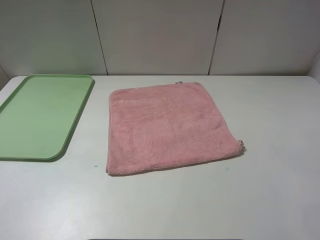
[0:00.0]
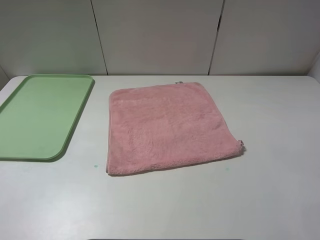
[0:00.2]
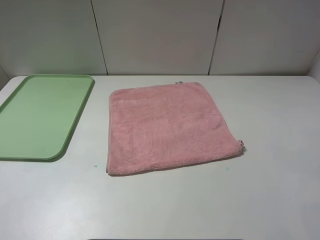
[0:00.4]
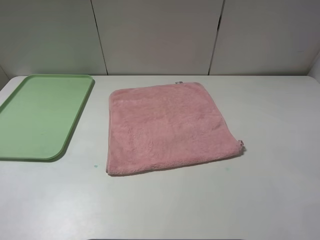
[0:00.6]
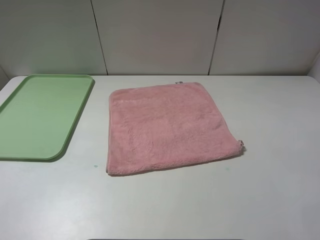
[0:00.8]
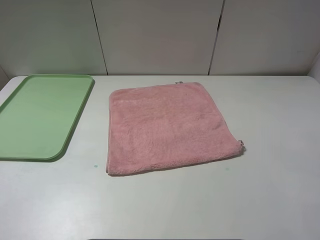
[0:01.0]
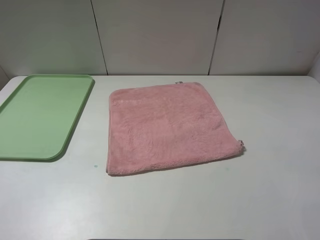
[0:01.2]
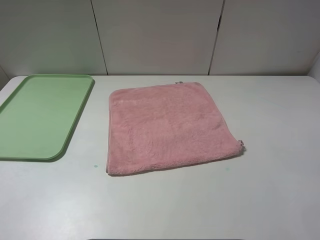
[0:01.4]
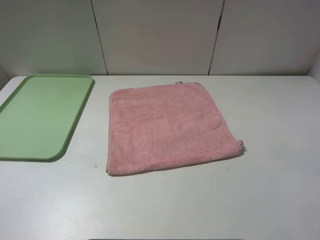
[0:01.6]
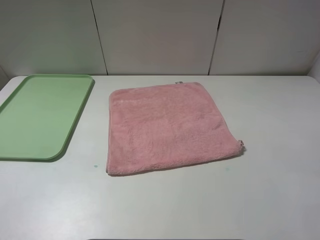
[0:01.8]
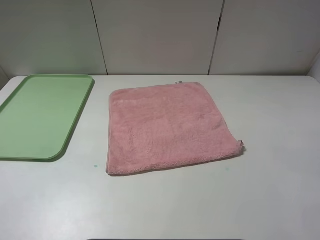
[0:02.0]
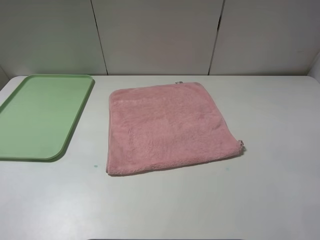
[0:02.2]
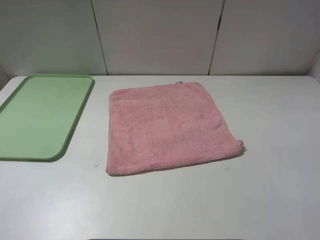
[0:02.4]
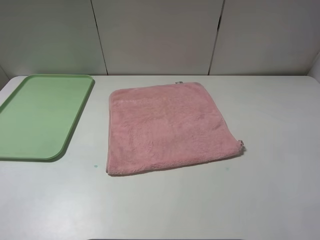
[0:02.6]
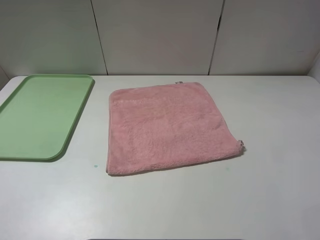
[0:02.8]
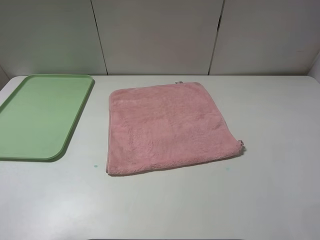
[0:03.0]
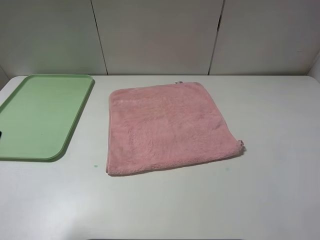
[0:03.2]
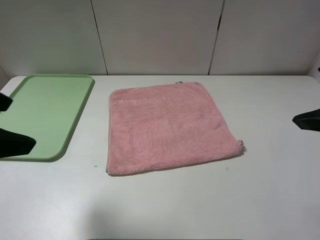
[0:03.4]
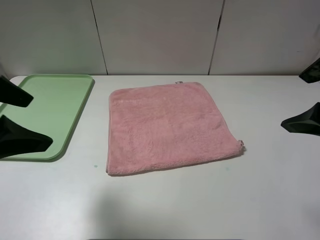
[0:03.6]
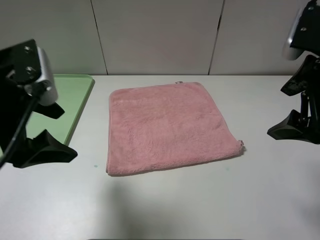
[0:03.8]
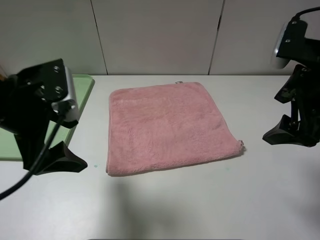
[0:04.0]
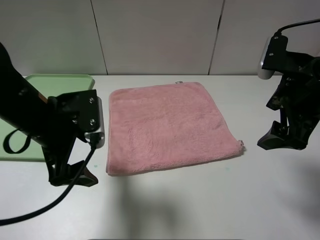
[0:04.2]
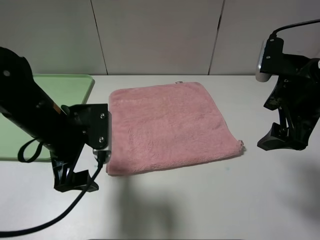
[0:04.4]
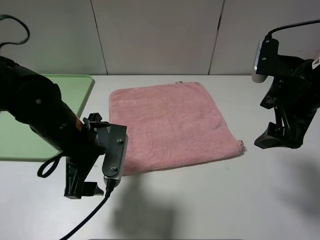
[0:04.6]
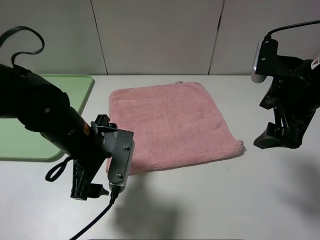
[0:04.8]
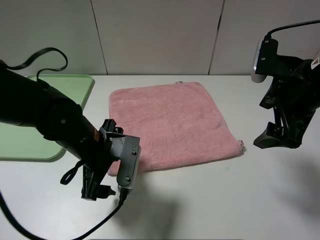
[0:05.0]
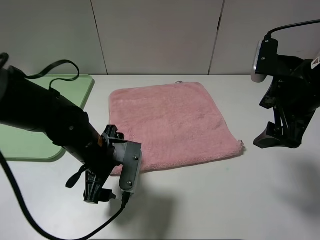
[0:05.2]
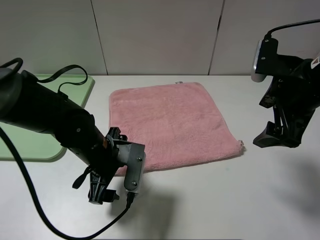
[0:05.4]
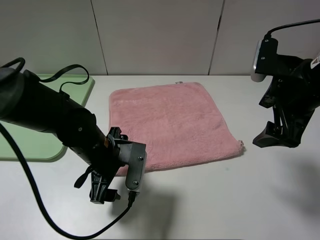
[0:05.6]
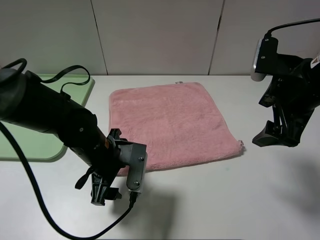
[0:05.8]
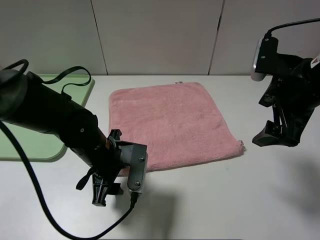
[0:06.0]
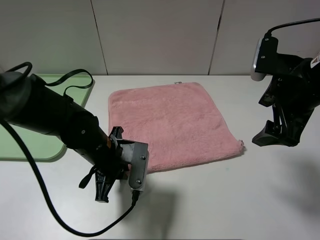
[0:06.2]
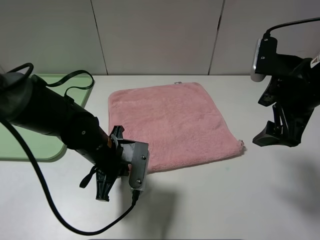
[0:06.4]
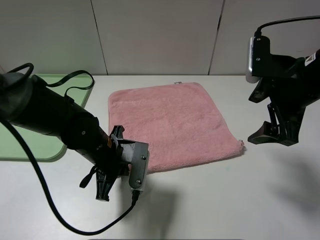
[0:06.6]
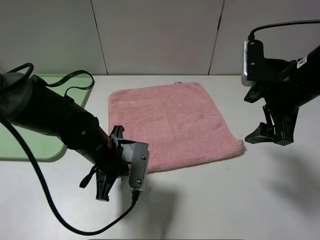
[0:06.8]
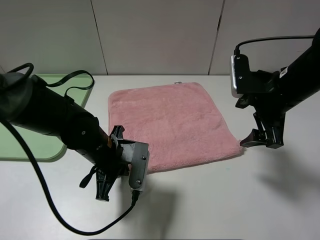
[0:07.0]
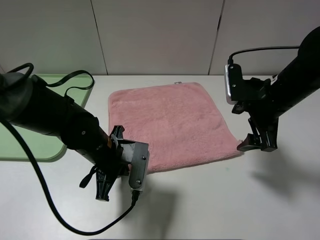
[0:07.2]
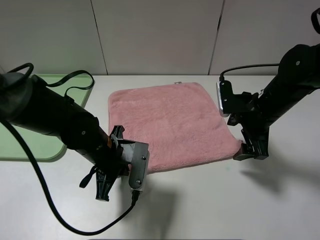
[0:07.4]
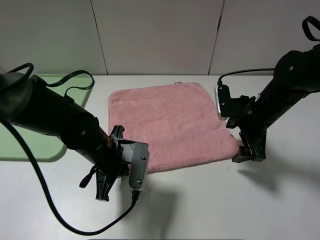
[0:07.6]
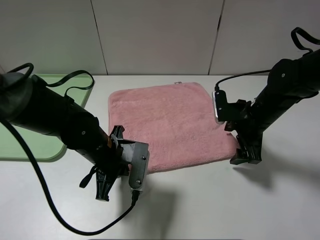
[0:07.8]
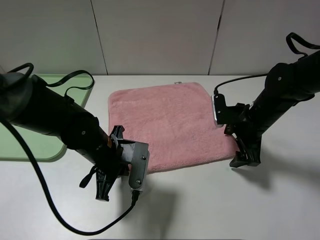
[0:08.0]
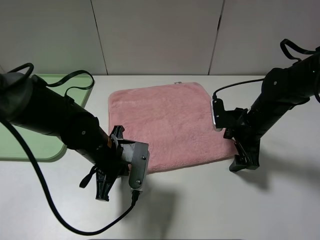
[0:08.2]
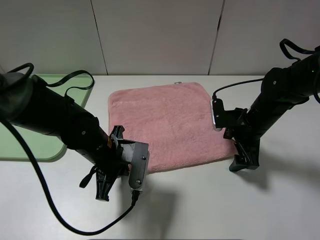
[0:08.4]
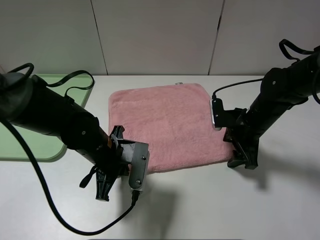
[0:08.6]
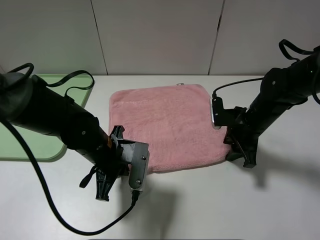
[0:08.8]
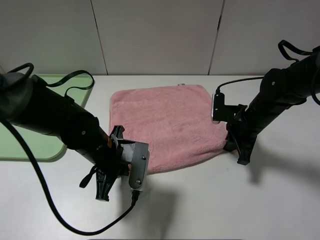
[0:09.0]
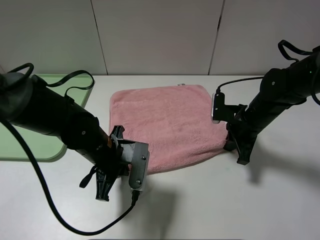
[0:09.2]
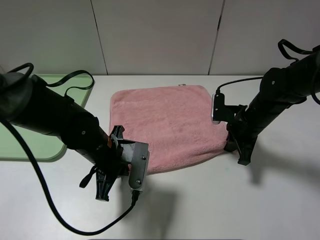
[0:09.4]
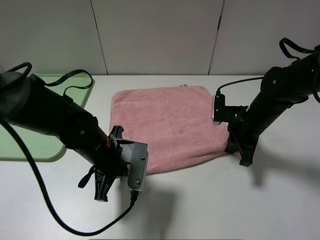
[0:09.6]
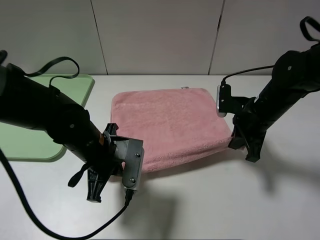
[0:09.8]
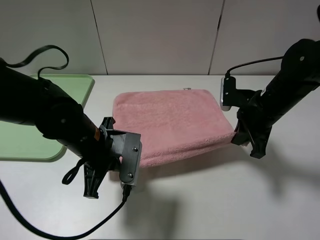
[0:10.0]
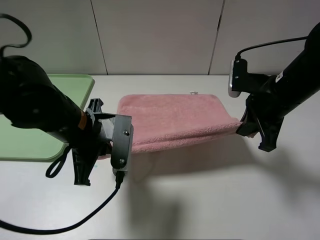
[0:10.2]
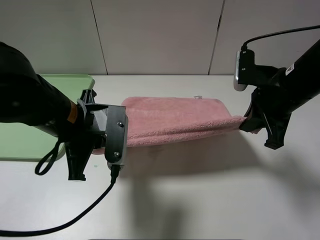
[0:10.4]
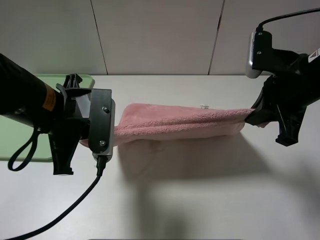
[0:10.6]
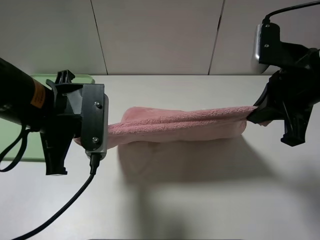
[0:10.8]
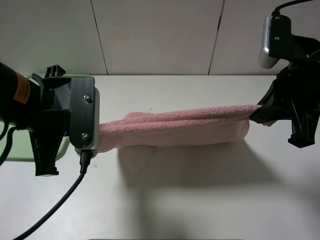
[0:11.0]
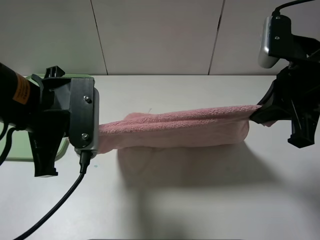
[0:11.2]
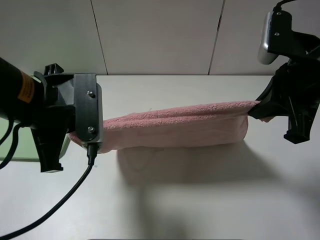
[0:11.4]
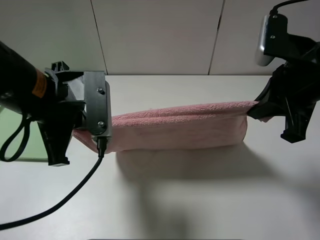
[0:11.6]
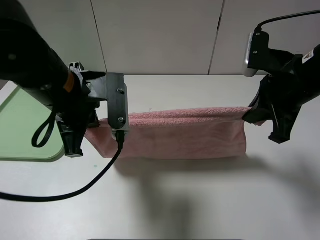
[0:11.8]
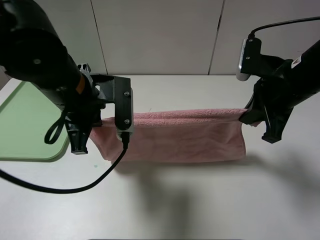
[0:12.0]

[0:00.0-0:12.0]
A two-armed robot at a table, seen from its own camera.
0:00.0 to 0:01.6: Neither gripper changes place.
0:03.0 to 0:04.4: The right gripper is displaced forward and downward by about 20 cm; the left gripper moves downward, forward and to the right, about 25 cm.
0:04.4 to 0:06.0: The left gripper goes about 10 cm downward, and closes its fingers.
0:06.0 to 0:07.6: The right gripper shifts roughly 15 cm downward and forward; the left gripper closes its fingers.
0:07.6 to 0:09.0: The right gripper closes its fingers.
0:09.0 to 0:10.4: Both grippers move upward, some 10 cm.

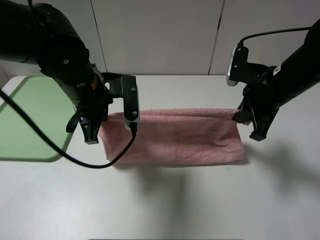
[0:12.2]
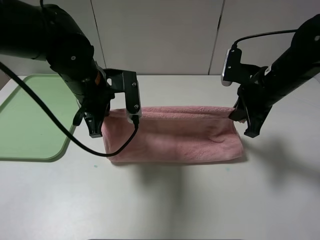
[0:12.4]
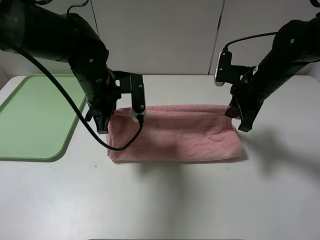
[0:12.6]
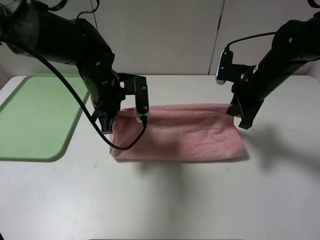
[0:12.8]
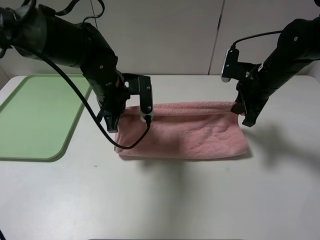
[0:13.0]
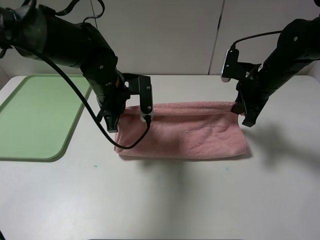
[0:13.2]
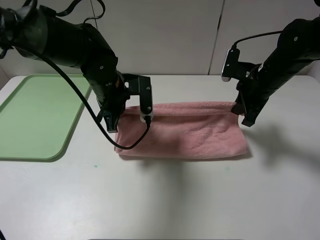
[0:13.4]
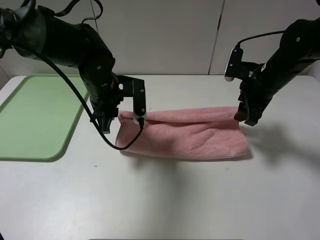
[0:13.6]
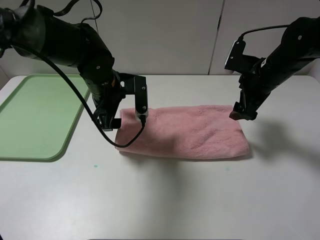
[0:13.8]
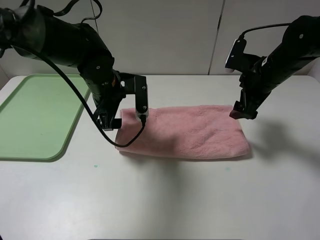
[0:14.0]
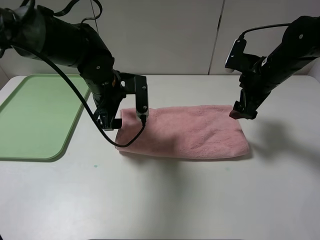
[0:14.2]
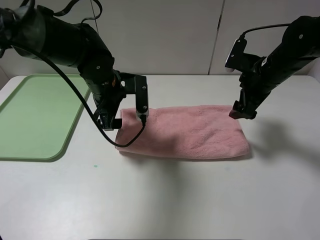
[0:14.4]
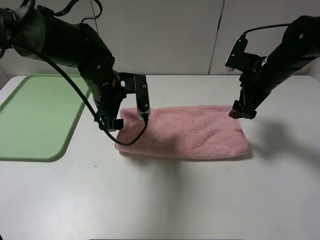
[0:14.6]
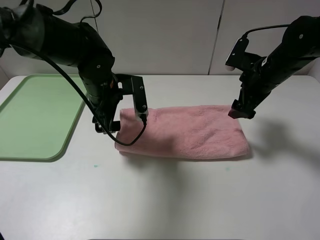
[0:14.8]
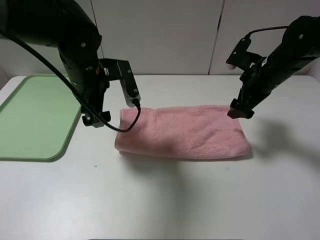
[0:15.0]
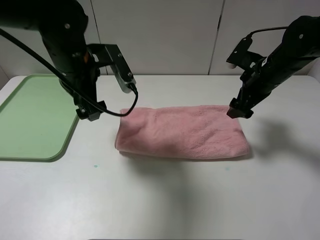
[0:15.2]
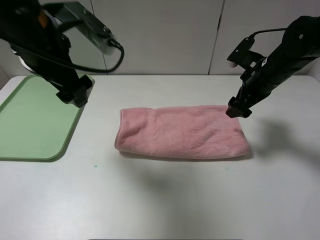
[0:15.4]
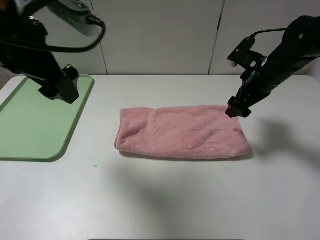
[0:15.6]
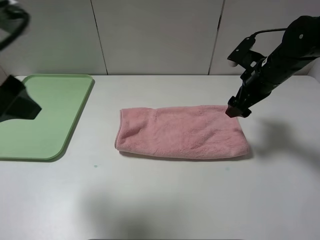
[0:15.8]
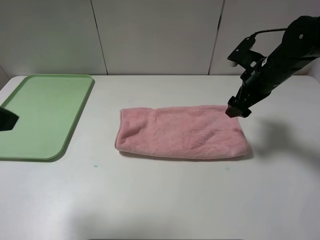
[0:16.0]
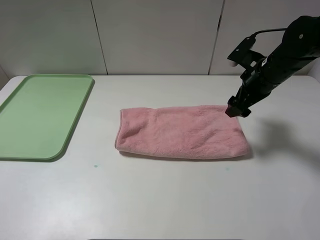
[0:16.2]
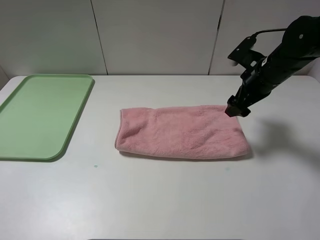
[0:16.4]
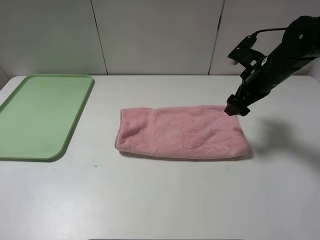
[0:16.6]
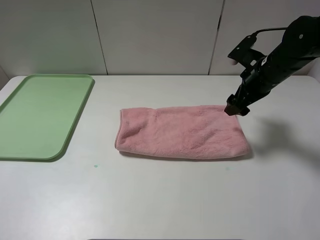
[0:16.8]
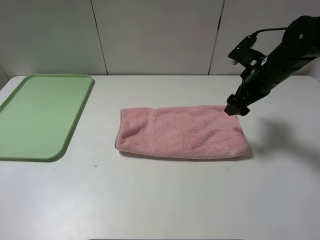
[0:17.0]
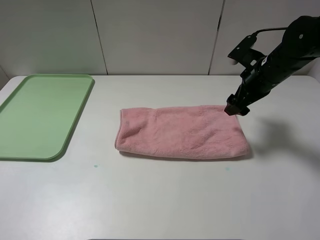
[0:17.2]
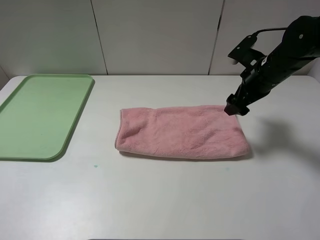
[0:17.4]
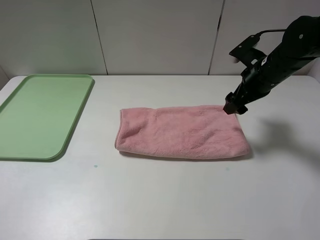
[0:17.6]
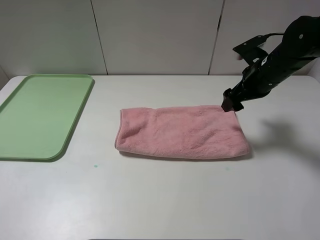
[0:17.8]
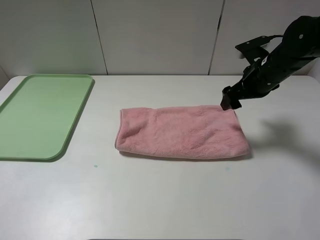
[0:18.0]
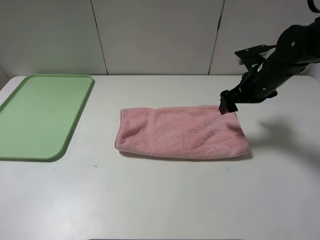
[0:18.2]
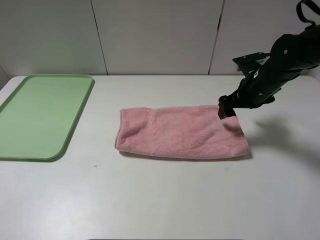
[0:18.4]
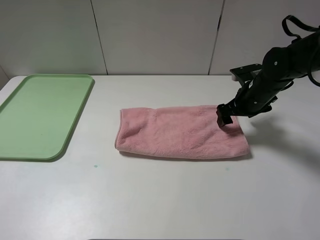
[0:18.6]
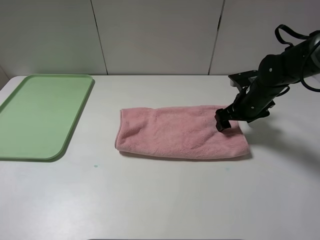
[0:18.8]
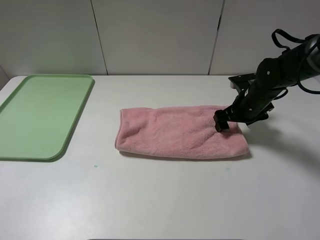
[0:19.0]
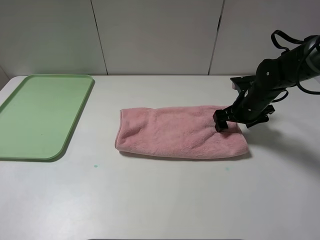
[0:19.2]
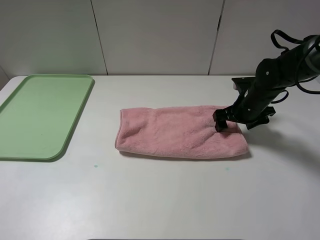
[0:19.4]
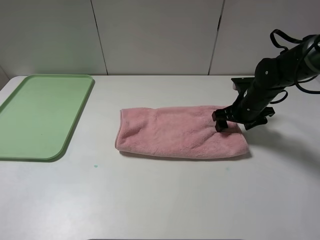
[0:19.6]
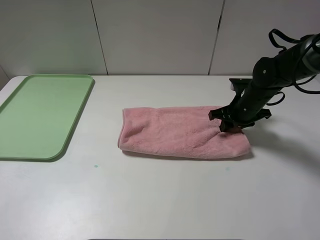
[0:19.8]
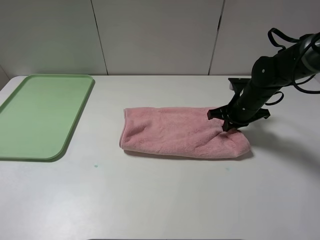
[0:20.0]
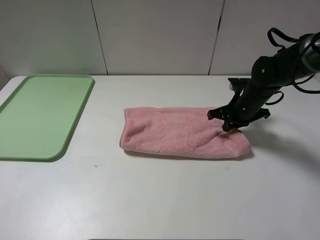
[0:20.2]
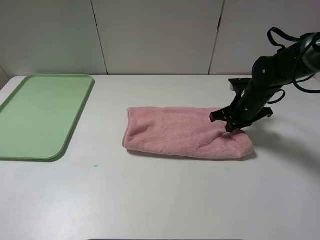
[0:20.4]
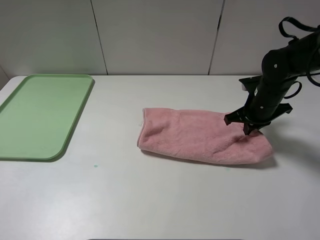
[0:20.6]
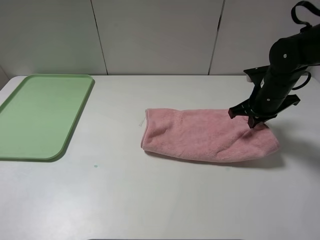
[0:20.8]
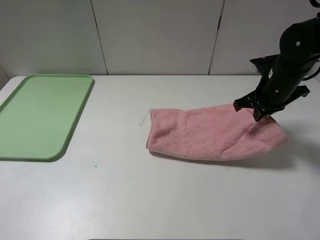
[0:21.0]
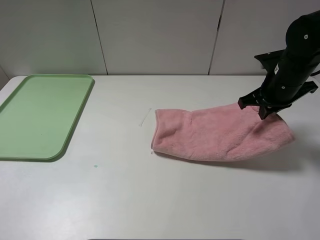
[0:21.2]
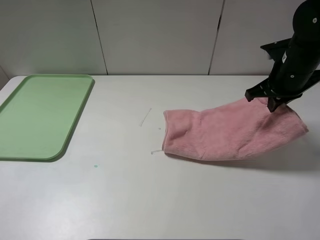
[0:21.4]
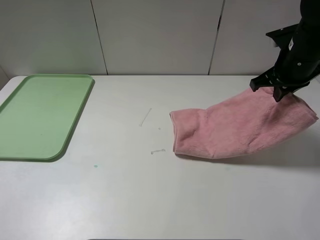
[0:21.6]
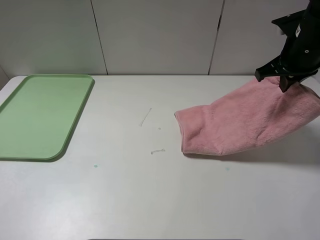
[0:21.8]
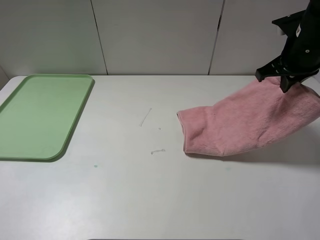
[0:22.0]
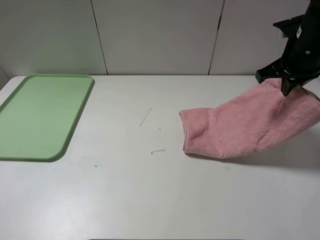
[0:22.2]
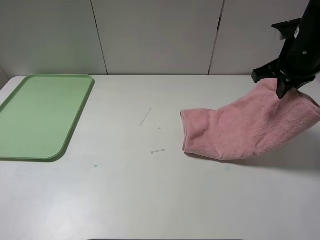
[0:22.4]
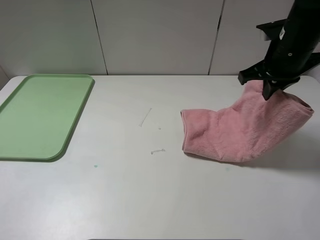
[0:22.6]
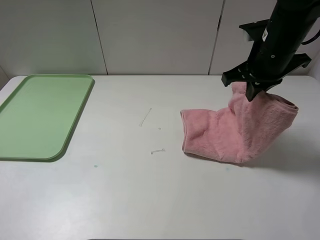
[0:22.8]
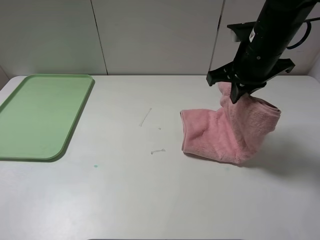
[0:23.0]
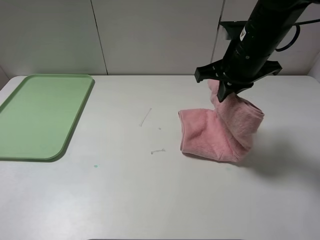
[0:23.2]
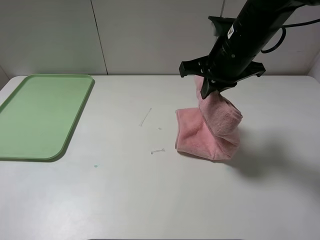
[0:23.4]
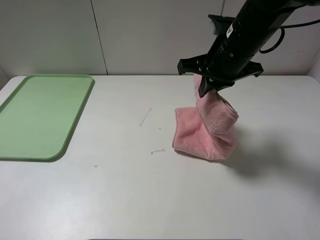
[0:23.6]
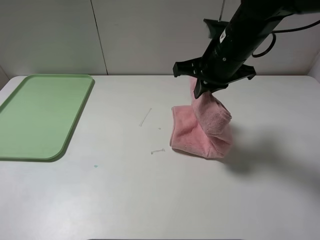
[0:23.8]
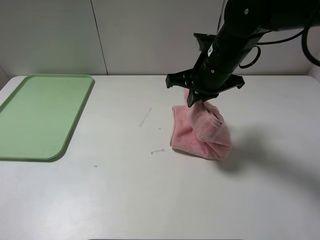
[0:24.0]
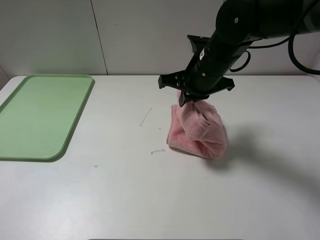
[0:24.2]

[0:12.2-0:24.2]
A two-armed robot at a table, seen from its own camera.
0:12.2 to 0:13.8: Both grippers travel together forward, roughly 5 cm. The left gripper opens its fingers. Meanwhile the right gripper opens.
0:13.8 to 0:15.2: The left gripper shifts some 10 cm upward.
0:15.2 to 0:16.6: The left gripper is displaced backward and to the left by some 35 cm.
0:18.2 to 0:19.8: The right gripper is displaced downward by approximately 5 cm, and closes its fingers.
0:19.8 to 0:21.2: The right gripper travels upward by some 10 cm.
0:21.2 to 0:22.6: The right gripper heads upward, covering approximately 5 cm.
0:22.6 to 0:24.2: The right gripper travels to the left by some 10 cm.
